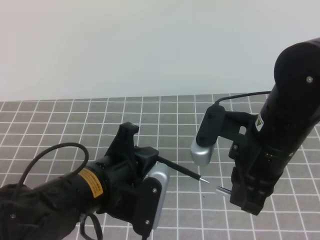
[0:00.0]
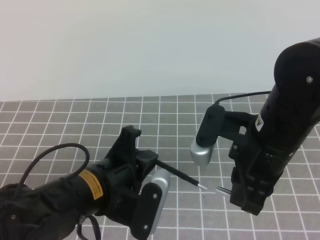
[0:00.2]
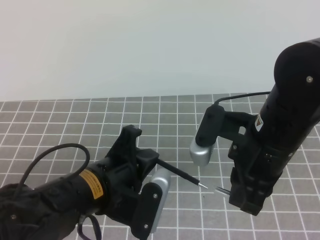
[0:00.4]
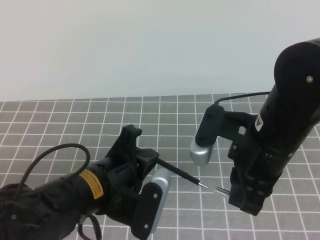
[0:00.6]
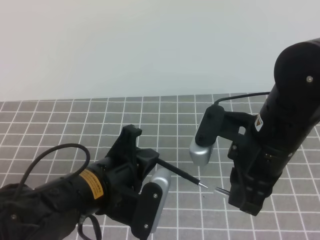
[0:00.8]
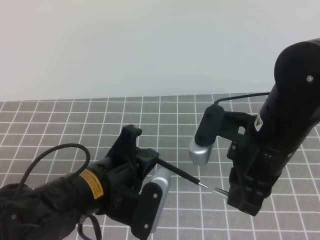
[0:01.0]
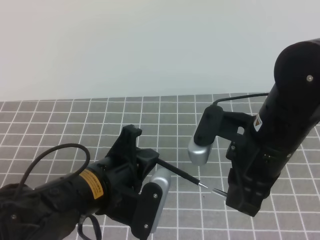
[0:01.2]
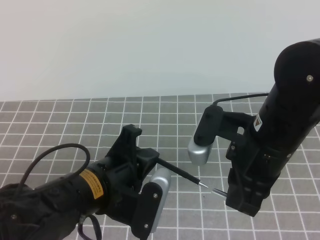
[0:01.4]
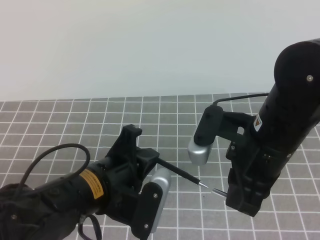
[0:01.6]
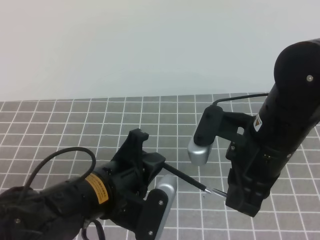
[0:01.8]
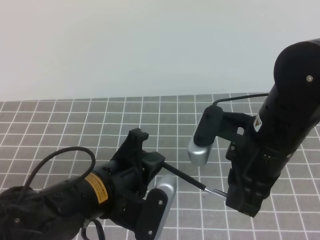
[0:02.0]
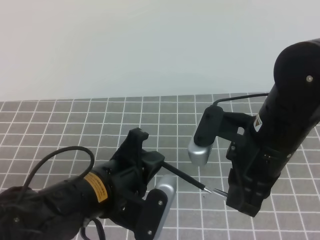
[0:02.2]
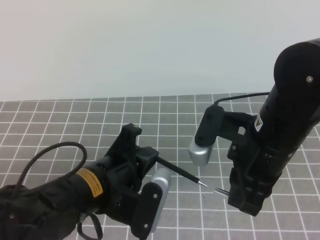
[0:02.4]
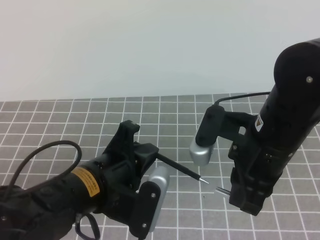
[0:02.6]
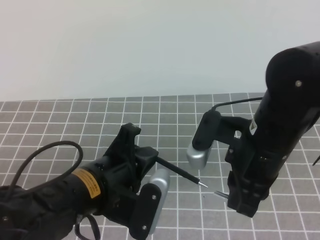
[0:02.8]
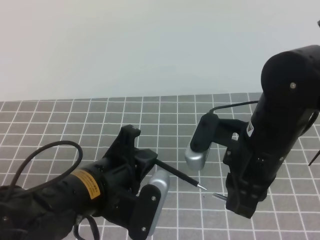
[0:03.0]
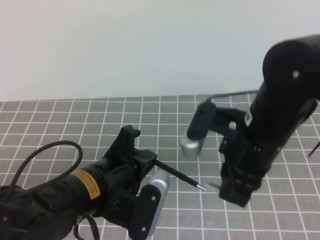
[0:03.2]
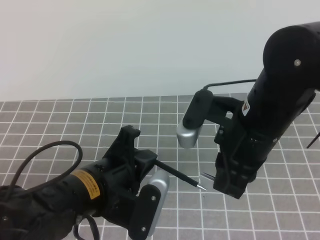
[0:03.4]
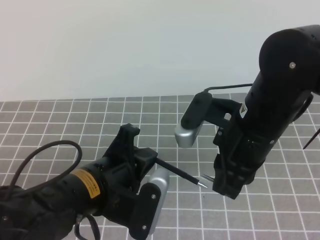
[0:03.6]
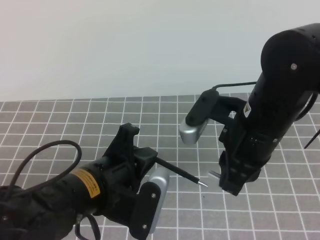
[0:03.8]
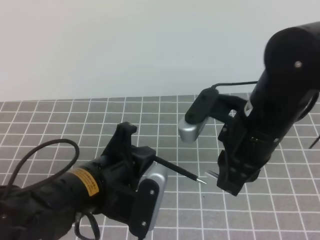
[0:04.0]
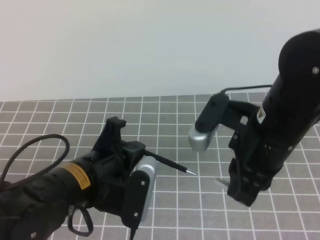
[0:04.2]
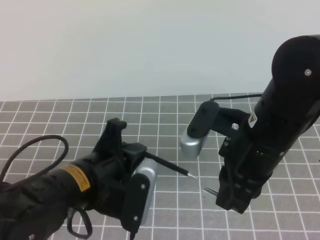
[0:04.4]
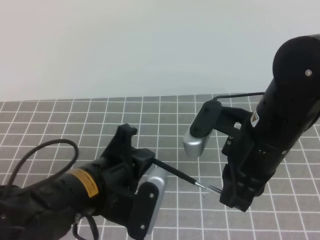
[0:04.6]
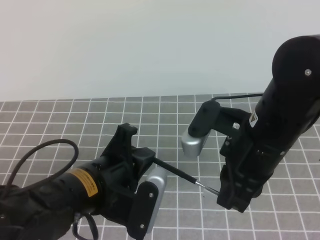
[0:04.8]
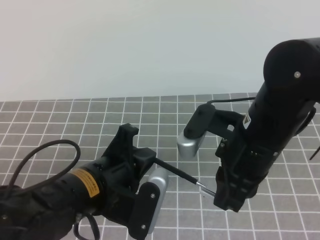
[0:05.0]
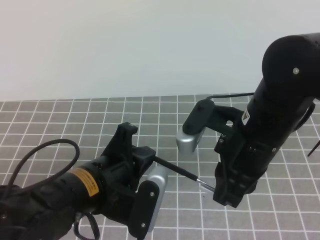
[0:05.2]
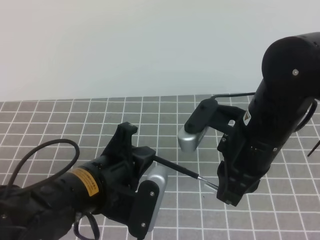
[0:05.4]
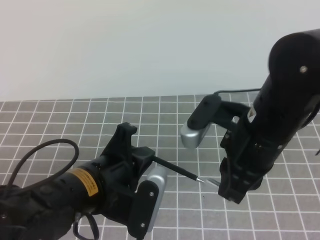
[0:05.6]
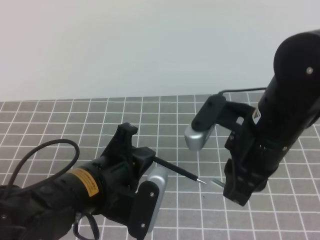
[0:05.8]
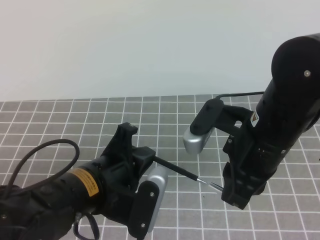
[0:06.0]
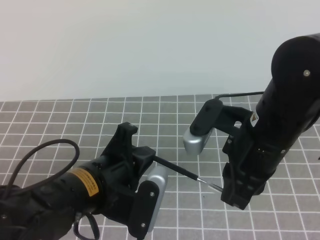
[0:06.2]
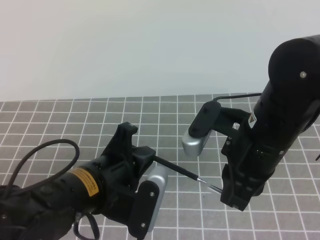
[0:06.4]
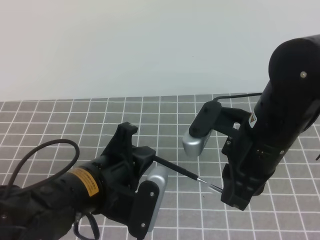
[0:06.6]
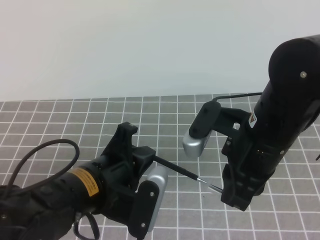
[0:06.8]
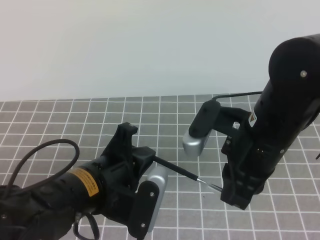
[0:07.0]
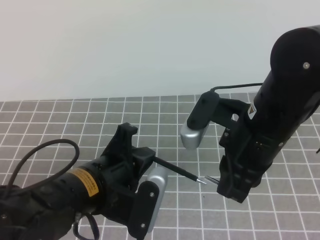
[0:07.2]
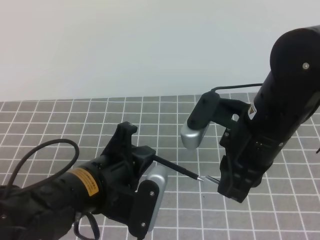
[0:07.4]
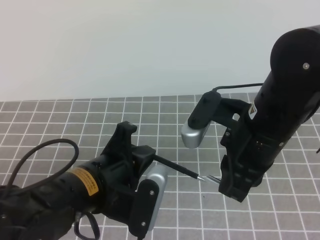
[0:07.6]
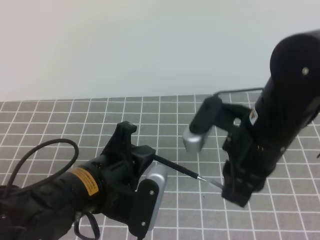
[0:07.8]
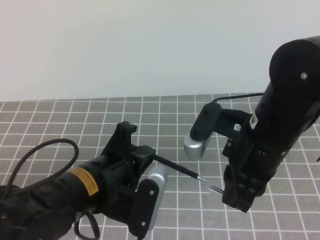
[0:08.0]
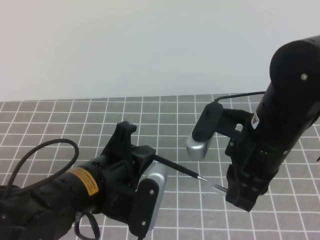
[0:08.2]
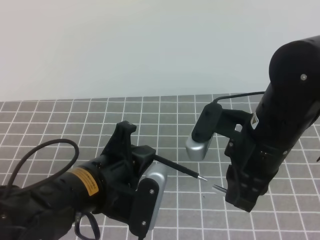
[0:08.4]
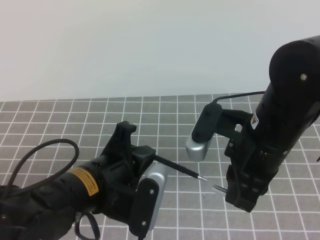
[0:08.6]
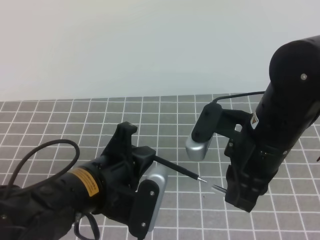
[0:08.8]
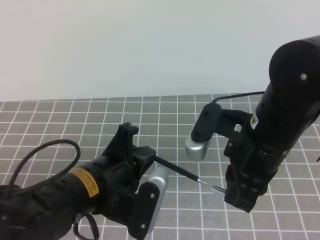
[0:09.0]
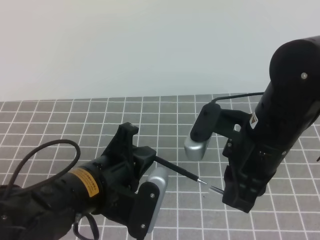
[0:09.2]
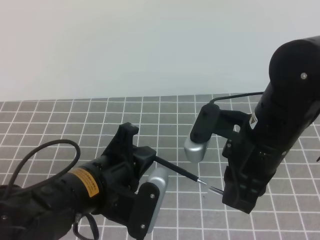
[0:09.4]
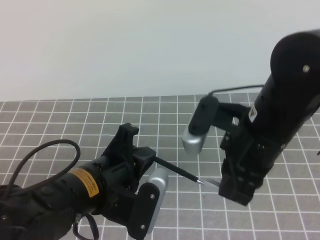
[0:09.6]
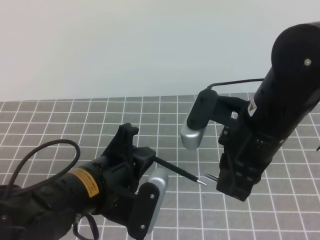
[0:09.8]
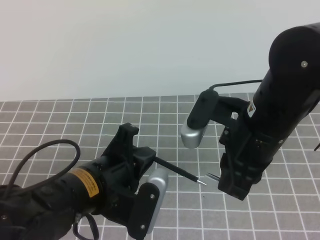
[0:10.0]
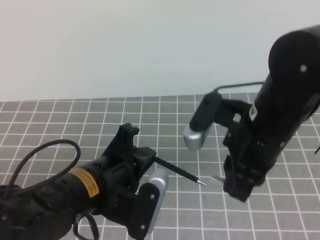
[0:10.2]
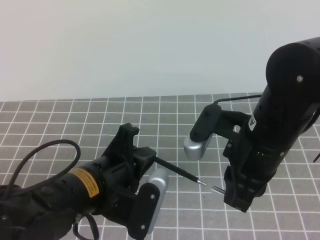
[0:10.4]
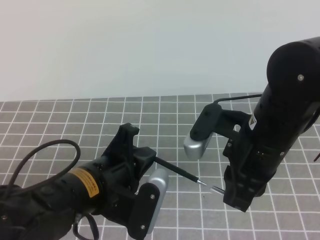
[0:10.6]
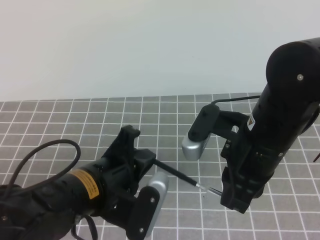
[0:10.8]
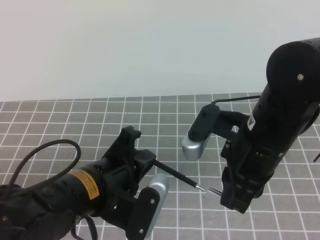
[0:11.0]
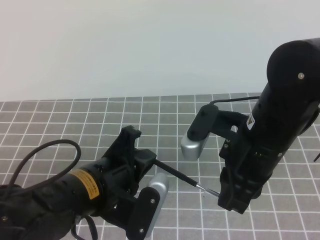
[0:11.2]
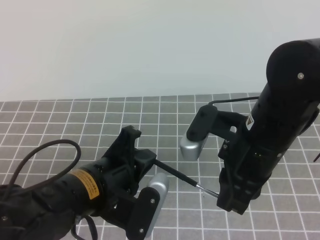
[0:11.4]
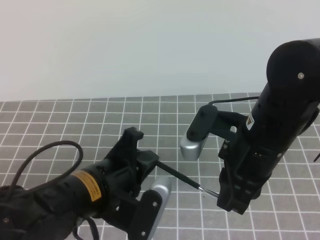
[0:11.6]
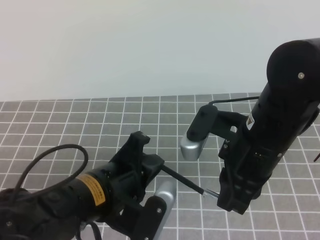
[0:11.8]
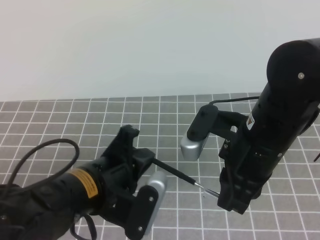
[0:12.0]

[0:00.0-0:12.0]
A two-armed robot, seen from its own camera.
Task of the whole recording: on the grey tablecloth, hold the pen cap in one hand and the pen in the other, then cover the pen cap.
Step, 0:00.8 to 0:02.2: Place the pen on the table.
0:00.0 to 0:03.0: The two grippers keep their place.
0:03.0 to 0:04.4: The grippers move only a little.
0:04.4 to 0:09.0: Both grippers stay about where they are.
0:09.0 to 0:10.4: The grippers stay close to where they were, moving slightly.
0:10.4 to 0:12.0: Neither gripper changes place.

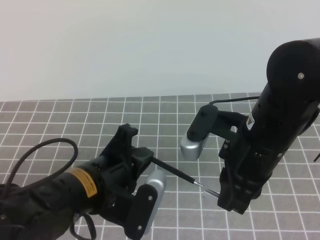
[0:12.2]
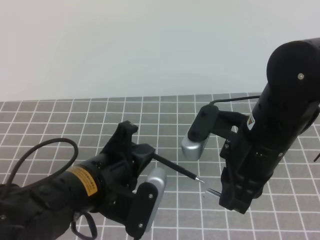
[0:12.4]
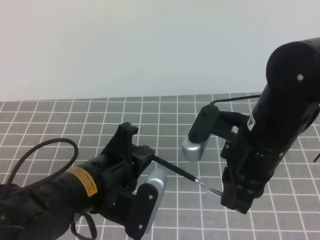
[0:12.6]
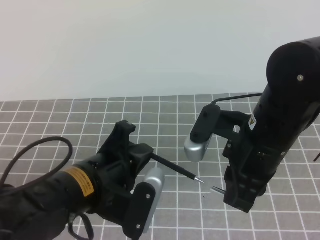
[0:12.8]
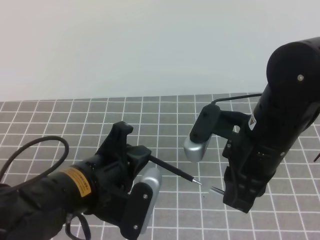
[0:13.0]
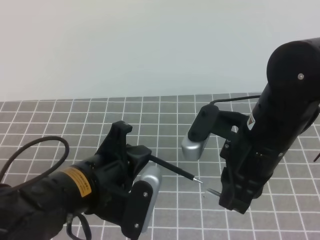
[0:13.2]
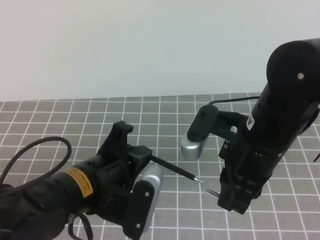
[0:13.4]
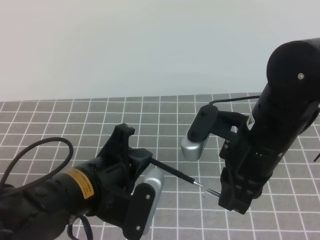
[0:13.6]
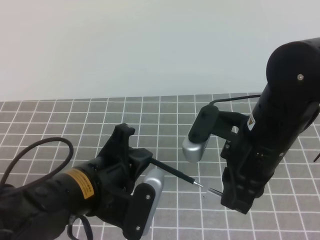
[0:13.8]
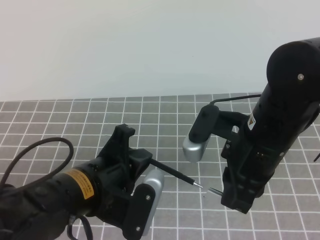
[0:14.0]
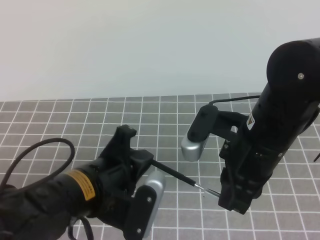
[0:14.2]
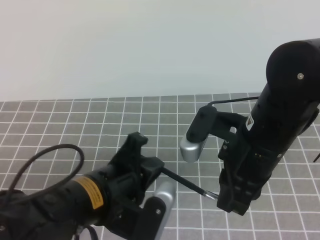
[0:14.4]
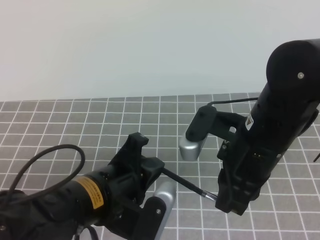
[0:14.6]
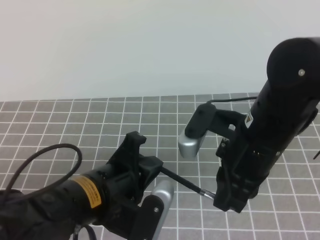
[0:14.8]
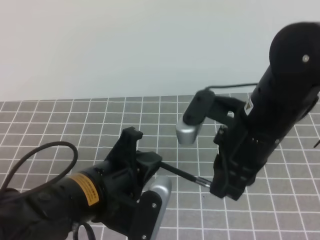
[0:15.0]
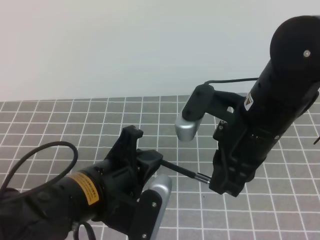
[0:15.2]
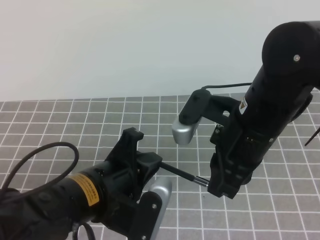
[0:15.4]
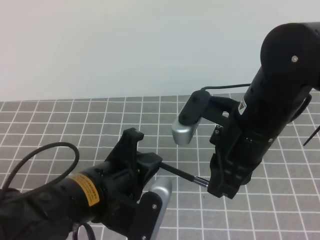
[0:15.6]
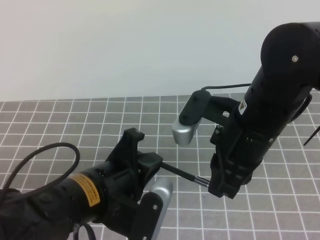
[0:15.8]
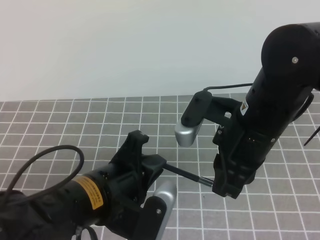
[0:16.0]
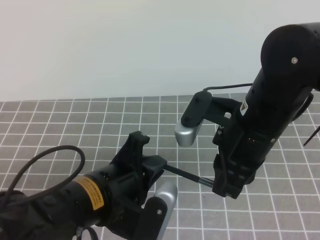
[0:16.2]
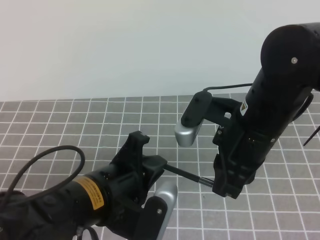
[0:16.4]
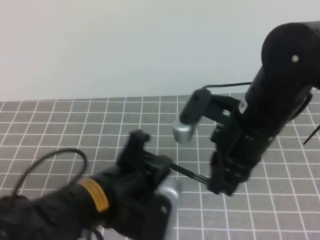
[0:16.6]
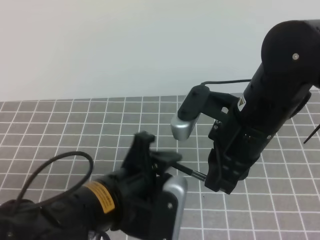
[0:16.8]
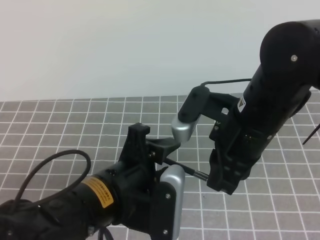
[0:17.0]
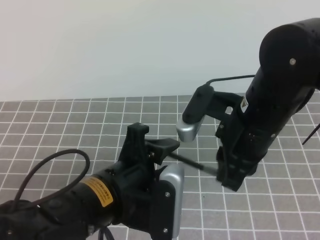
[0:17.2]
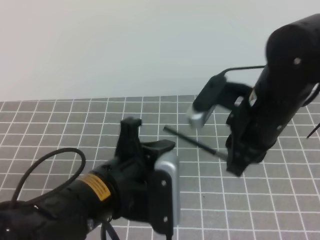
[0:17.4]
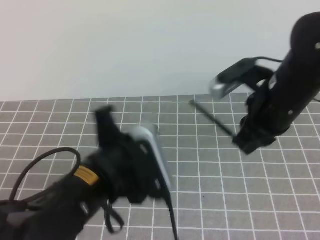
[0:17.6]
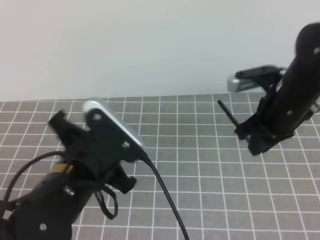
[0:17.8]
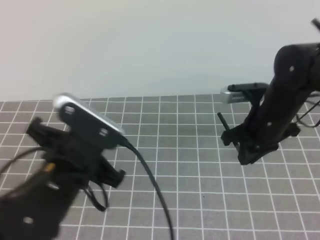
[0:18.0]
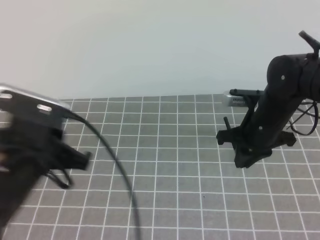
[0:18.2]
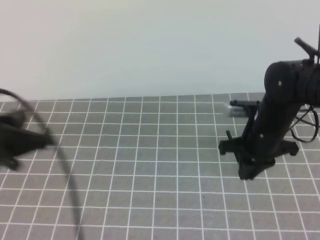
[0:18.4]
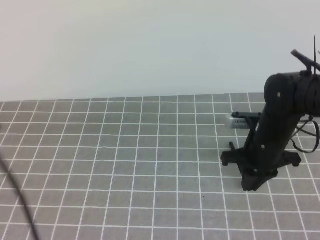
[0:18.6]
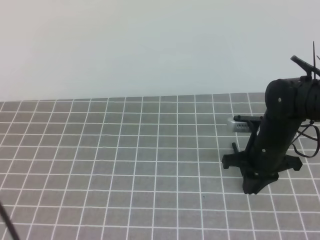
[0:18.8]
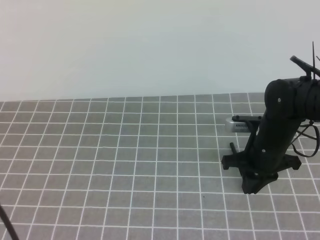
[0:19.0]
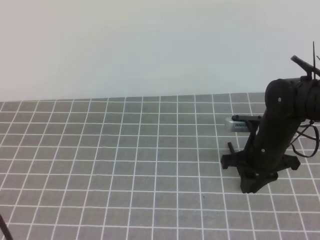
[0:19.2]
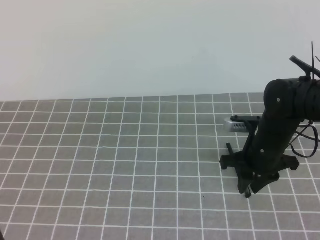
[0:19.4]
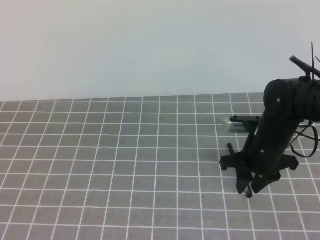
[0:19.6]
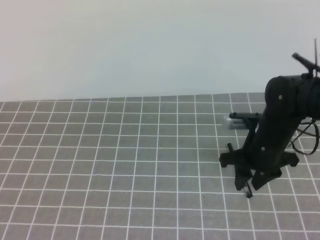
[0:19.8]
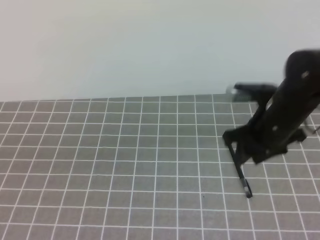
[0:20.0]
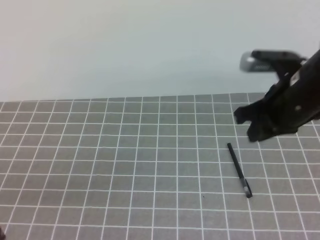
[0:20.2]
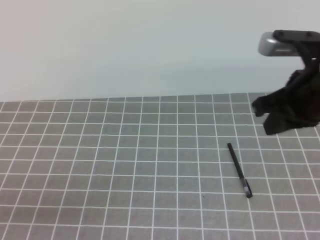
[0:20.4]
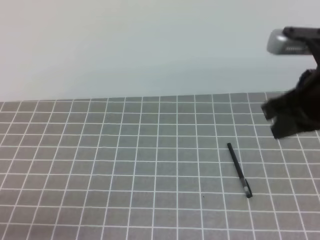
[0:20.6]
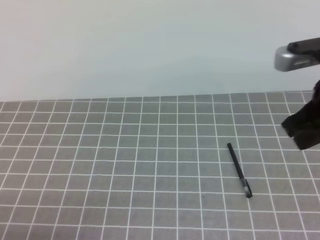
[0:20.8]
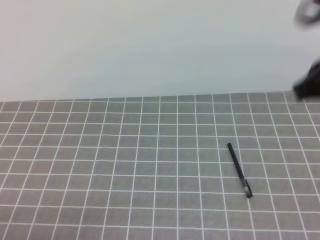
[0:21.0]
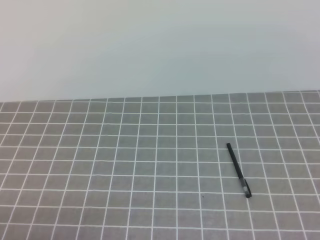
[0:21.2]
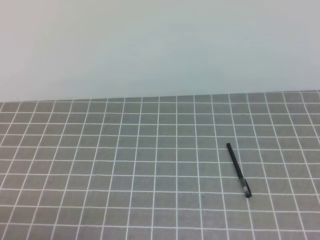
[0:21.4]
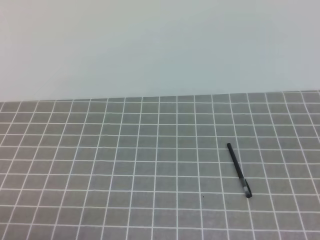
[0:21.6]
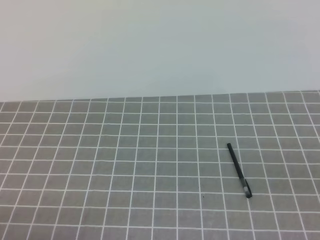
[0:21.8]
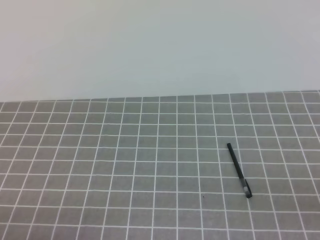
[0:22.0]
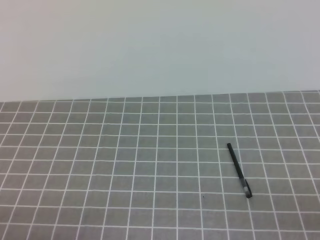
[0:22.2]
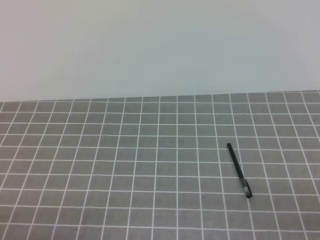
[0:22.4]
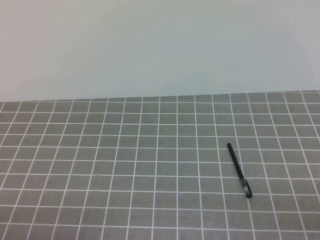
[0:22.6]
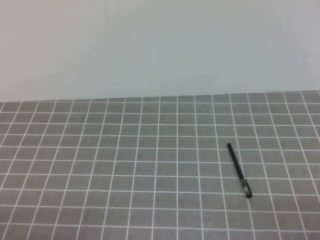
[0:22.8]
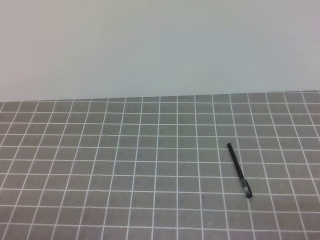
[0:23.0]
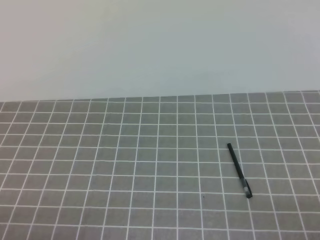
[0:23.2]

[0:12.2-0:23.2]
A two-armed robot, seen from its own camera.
Task of the whole recording: on the grey tablecloth, hold the pen cap in one hand and the pen in the other, then cover the pen cap.
0:12.2 to 0:13.8: The two grippers keep their place.
0:13.8 to 0:15.4: The grippers make only small movements.
0:15.4 to 0:17.0: The left gripper opens its fingers.
0:17.0 to 0:18.4: The left gripper shifts approximately 10 cm to the left, and closes up. The right gripper shifts about 15 cm downward, forward and to the right.
0:18.4 to 0:20.0: The right gripper opens its fingers; the left gripper shifts roughly 10 cm backward and to the left.
0:20.0 to 0:21.6: The right gripper shifts about 35 cm backward, upward and to the right, and closes up.
0:21.6 to 0:23.2: The right gripper moves downward, roughly 20 cm.
